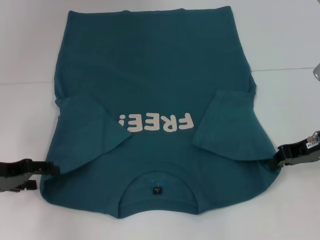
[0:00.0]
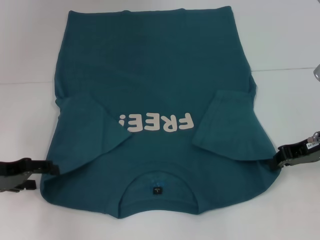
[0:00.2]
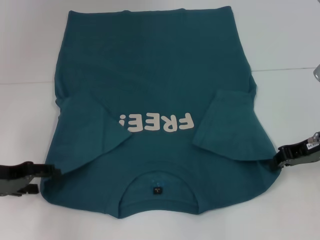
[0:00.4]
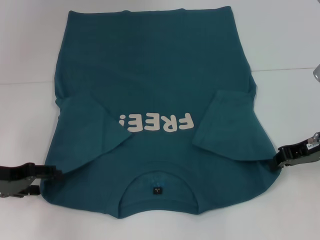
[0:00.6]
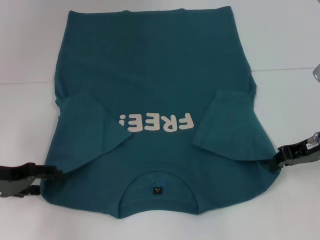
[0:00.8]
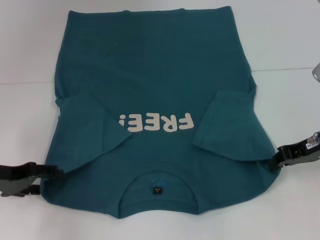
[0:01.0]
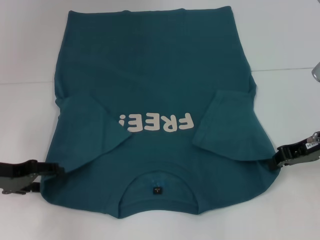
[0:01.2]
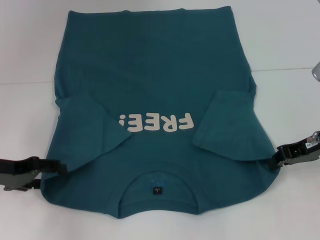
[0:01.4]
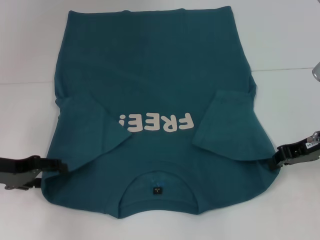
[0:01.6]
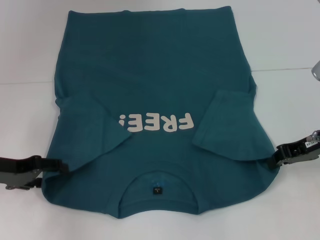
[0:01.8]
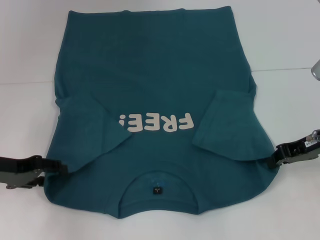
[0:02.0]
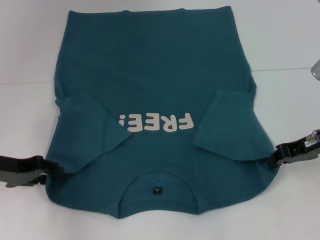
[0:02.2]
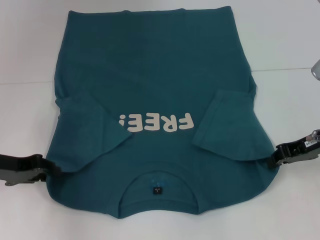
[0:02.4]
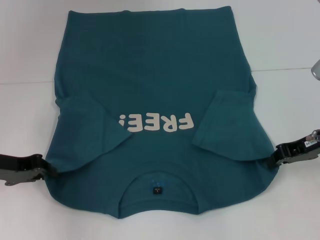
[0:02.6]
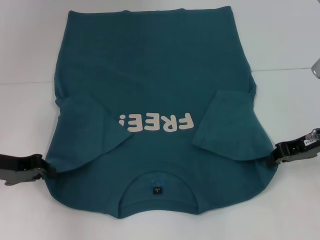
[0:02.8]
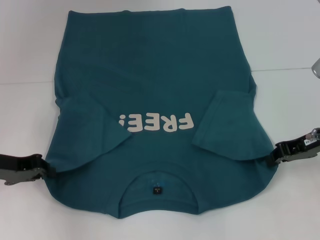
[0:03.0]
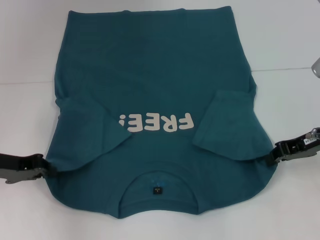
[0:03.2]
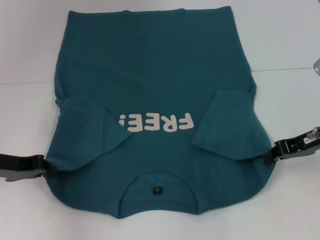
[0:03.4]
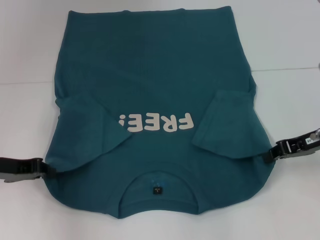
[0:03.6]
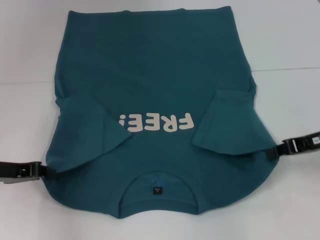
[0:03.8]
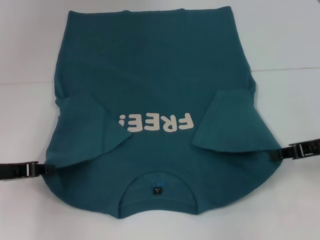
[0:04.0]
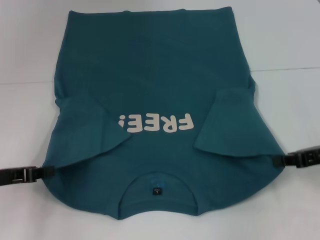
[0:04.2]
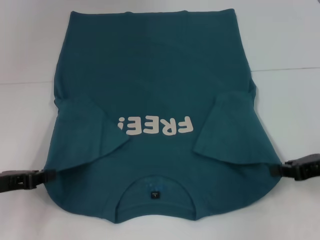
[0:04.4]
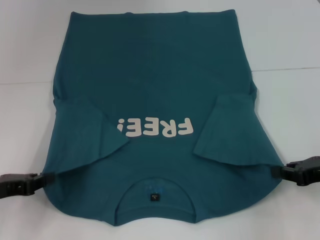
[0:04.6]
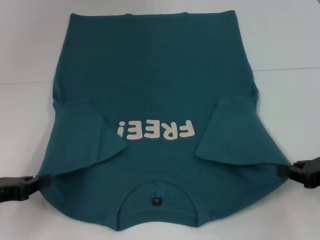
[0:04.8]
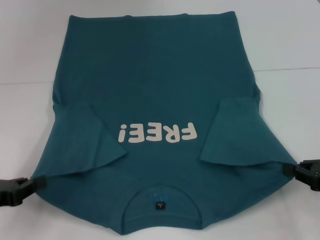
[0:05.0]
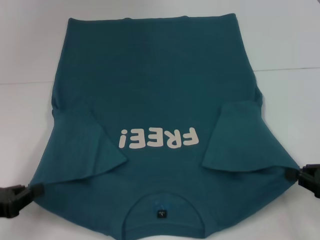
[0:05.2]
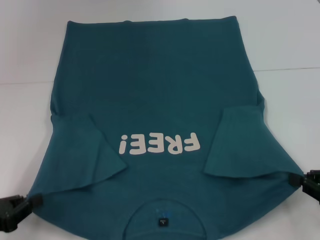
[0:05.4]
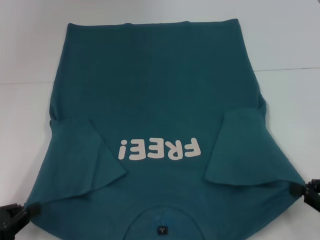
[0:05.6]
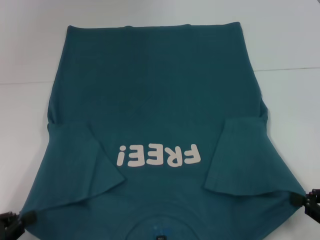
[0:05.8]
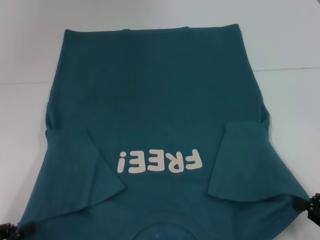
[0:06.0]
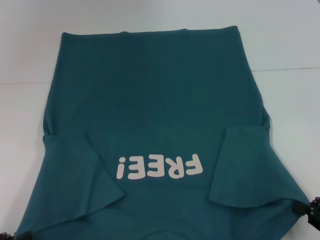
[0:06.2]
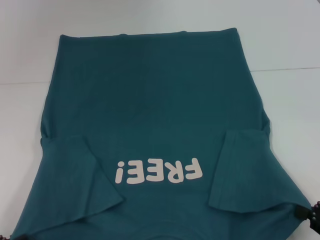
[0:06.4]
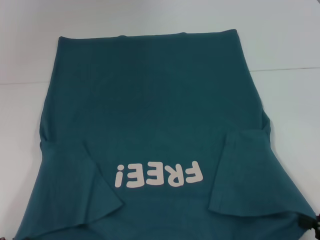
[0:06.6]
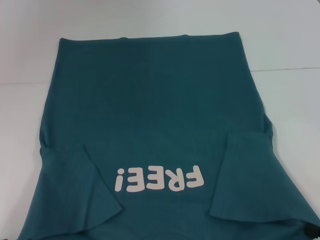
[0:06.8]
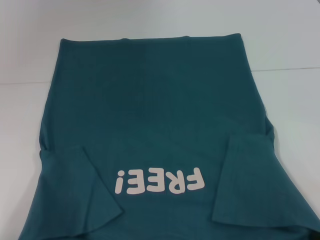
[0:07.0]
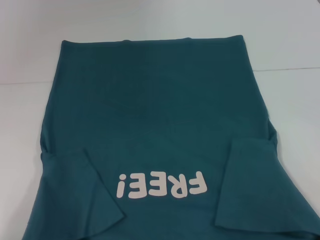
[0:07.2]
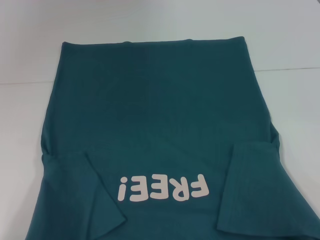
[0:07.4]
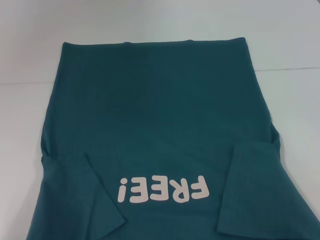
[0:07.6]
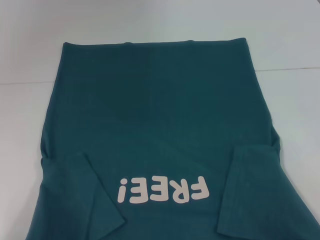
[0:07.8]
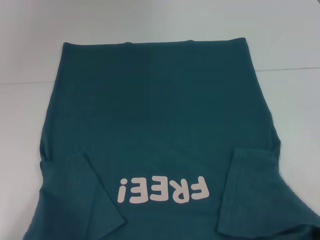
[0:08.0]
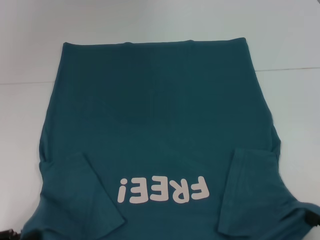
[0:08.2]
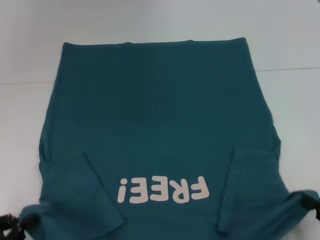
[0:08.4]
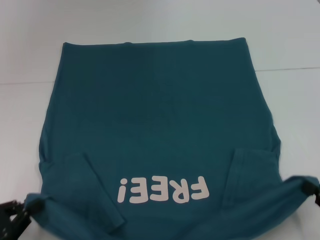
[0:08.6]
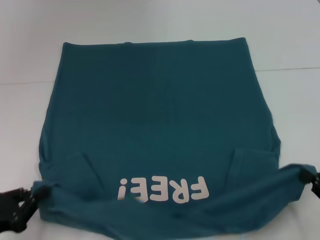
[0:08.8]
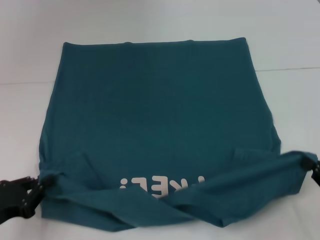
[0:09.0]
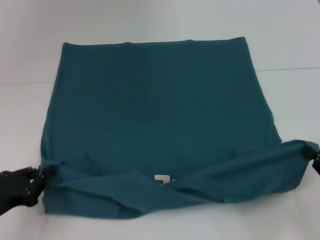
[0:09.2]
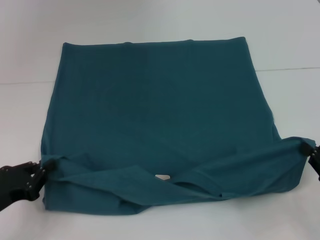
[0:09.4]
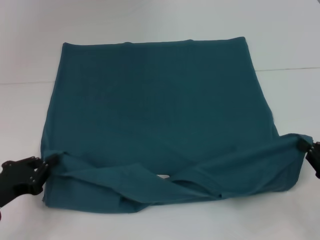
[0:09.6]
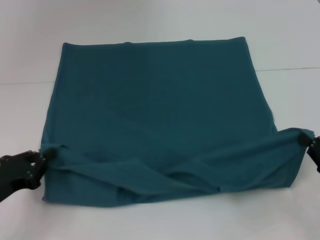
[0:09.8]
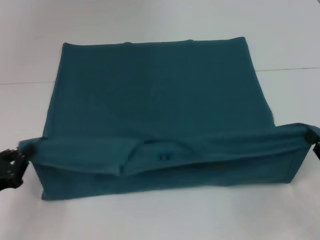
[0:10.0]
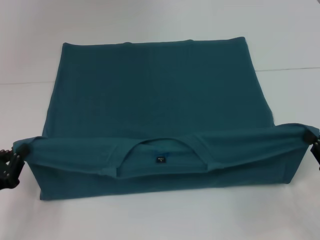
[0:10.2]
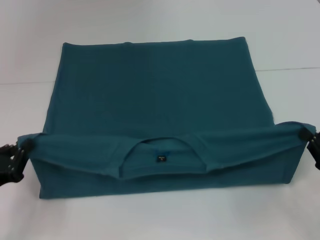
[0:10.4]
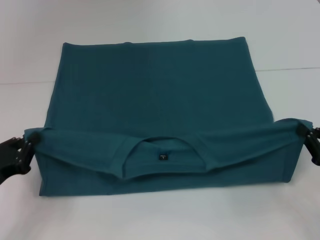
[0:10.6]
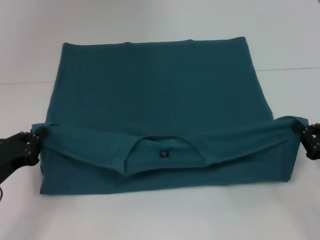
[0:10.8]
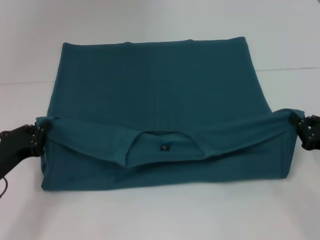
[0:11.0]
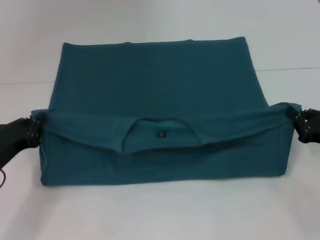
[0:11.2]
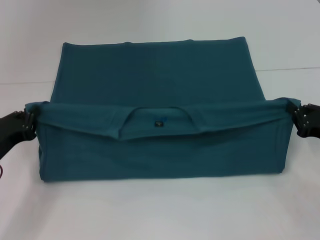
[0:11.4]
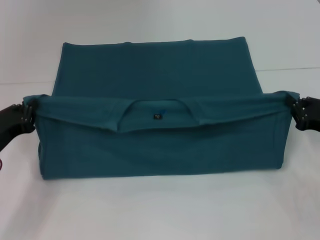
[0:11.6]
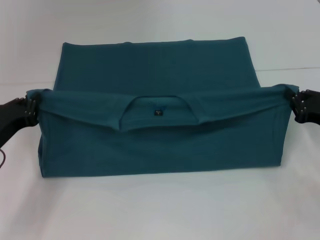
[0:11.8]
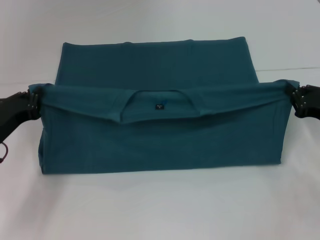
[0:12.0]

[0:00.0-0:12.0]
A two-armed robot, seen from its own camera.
Step, 0:00.0 to 0:03.2: Grab the bottom left corner with your left hand.
0:00.0 to 0:01.6: The two grippers keep their place.
0:01.6 to 0:03.0: The left gripper closes its fingers.
0:03.0 to 0:04.4: The left gripper shifts by approximately 5 cm, while the right gripper travels backward by approximately 5 cm.
0:04.4 to 0:06.0: The grippers both shift backward by some 10 cm.
0:06.0 to 0:07.6: The right gripper goes some 5 cm backward.
0:07.6 to 0:09.0: Both grippers travel together forward, roughly 10 cm.
0:10.4 to 0:12.0: The grippers both shift forward by about 10 cm.

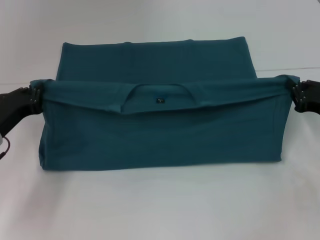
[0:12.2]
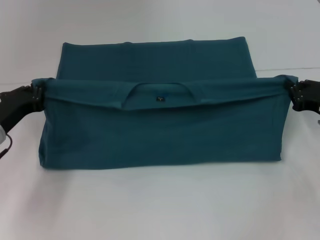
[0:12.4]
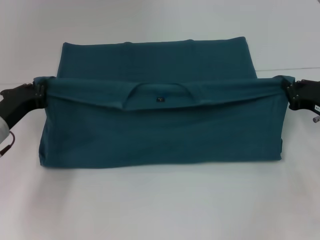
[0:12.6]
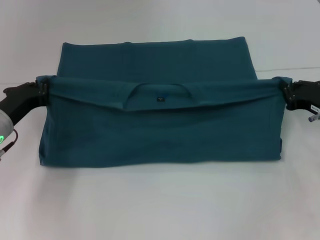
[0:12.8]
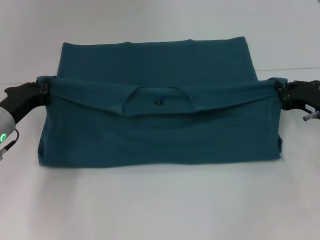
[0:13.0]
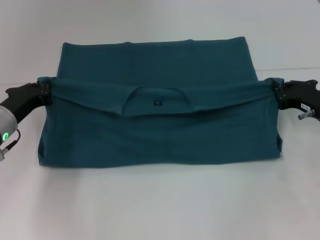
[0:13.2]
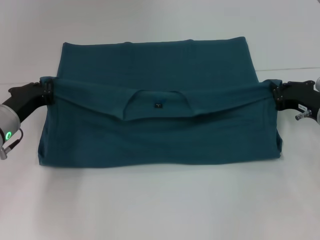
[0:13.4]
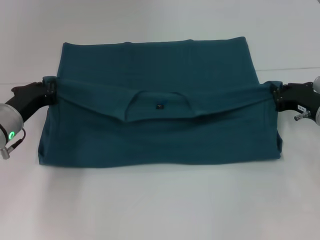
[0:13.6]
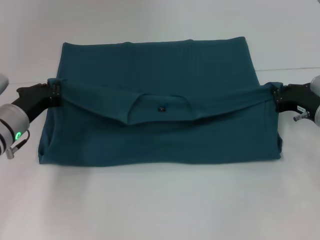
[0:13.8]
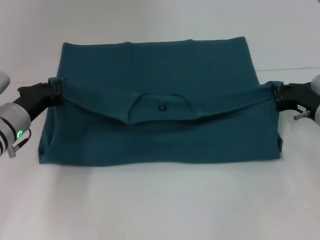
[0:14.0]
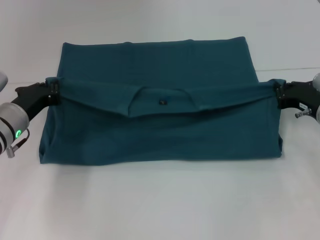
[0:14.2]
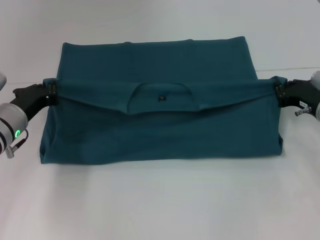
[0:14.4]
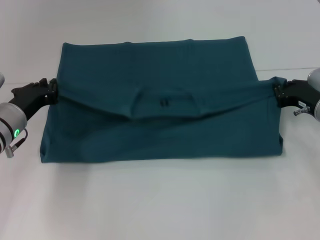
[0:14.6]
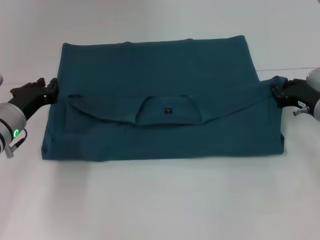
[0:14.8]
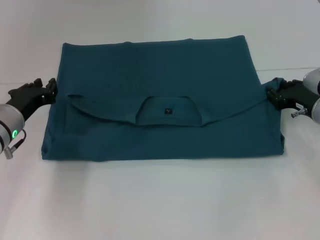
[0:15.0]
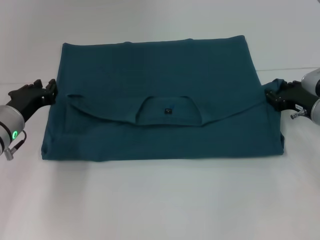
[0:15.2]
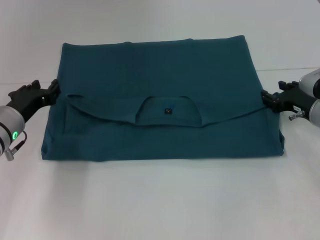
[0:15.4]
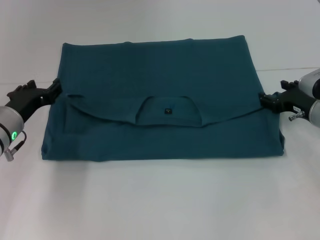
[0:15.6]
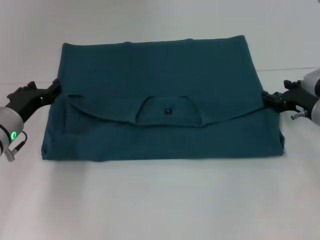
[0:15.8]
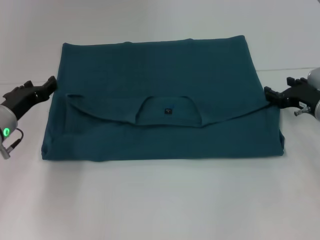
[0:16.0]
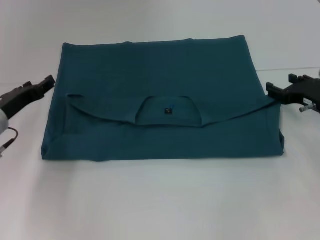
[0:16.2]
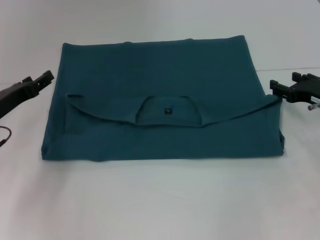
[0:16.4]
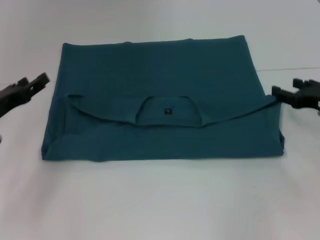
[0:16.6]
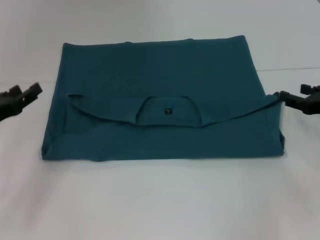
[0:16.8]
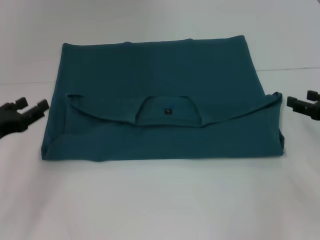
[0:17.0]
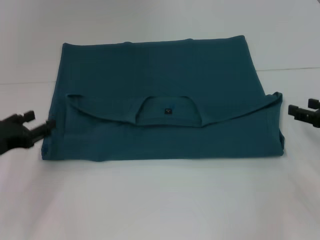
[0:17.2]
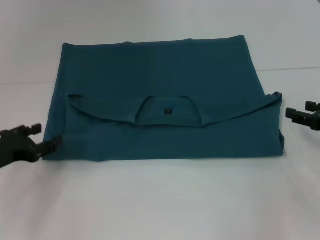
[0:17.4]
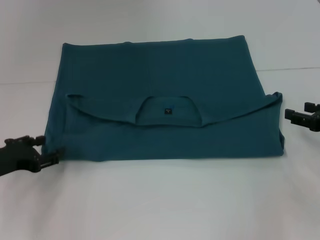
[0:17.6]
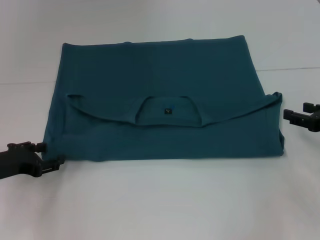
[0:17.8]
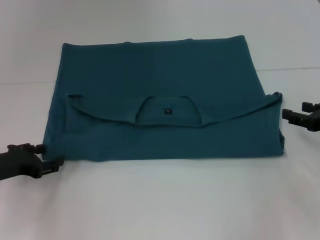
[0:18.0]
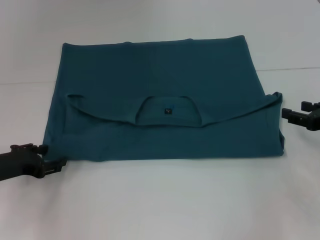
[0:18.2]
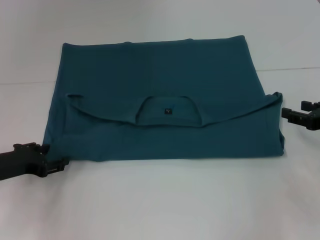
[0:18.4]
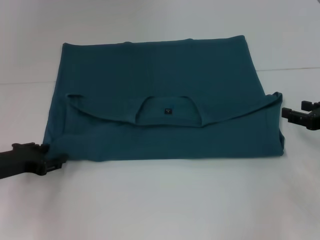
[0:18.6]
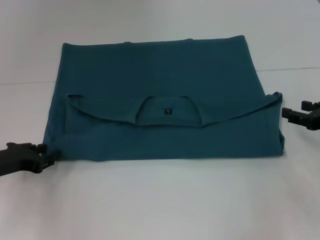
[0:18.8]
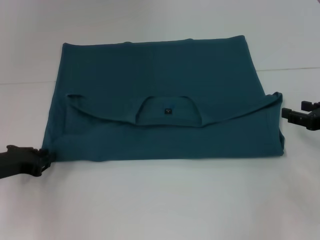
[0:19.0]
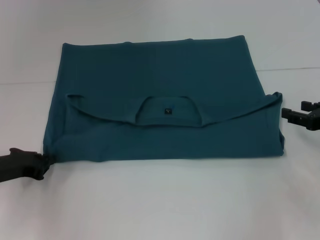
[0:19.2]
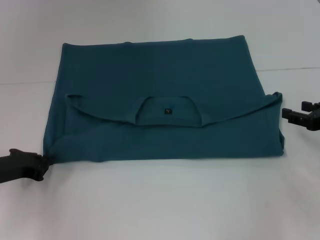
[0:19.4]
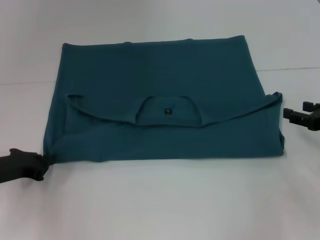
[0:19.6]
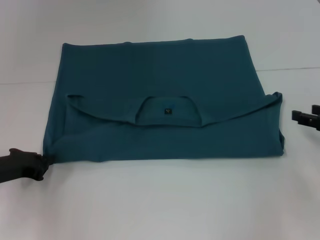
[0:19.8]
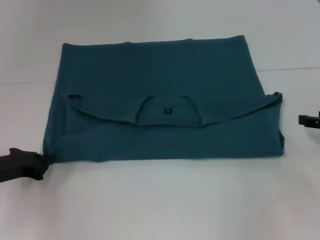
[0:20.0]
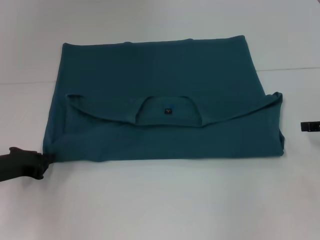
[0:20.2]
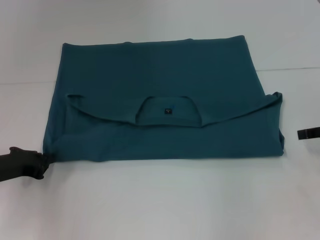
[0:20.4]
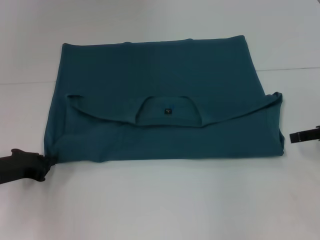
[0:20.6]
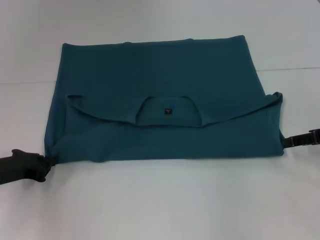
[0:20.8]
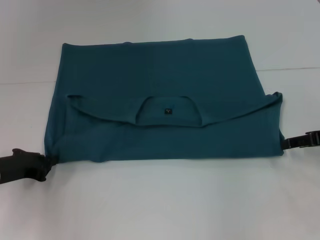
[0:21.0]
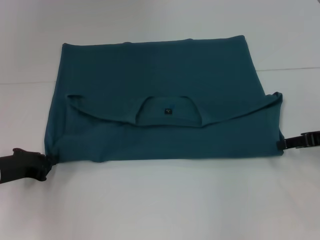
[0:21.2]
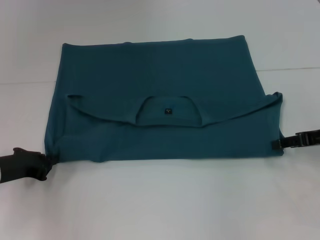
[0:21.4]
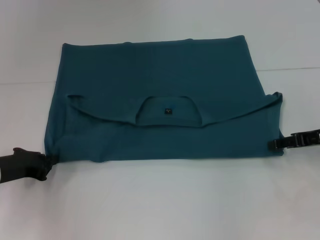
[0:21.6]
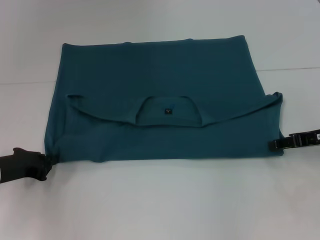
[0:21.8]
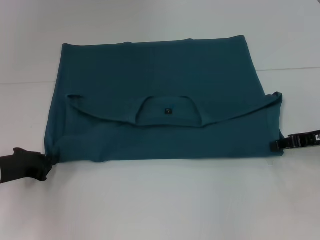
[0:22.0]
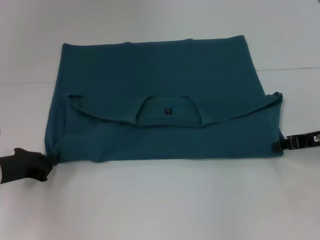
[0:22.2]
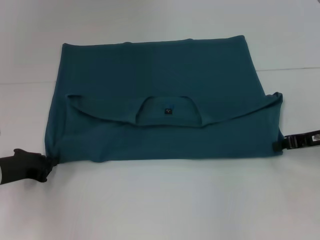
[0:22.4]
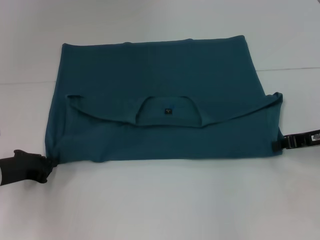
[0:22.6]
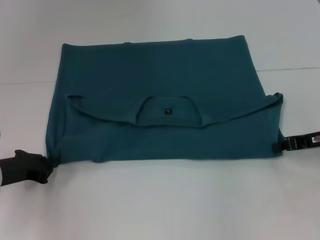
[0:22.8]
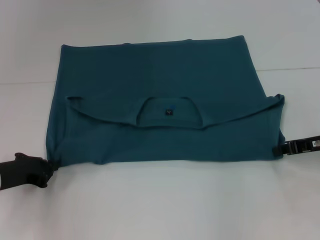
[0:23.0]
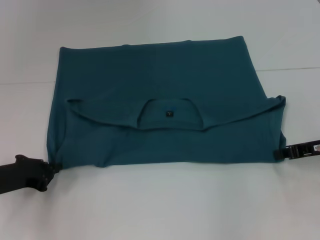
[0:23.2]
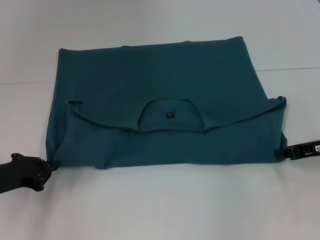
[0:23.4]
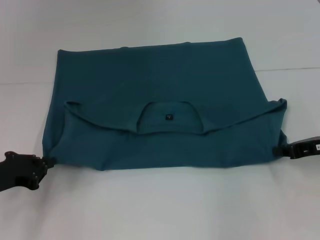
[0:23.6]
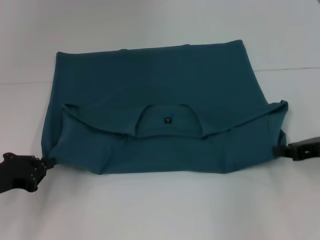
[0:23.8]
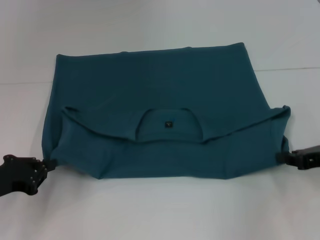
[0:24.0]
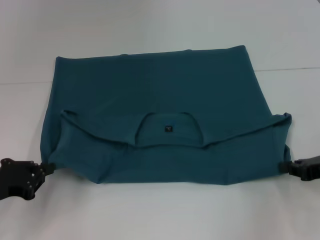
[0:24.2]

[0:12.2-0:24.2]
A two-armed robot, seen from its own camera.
Step, 0:12.2 to 0:15.8: Fold the clothes to the left.
Step, 0:12.2 to 0:15.8: Fold the clothes to the right.
0:12.2 to 0:13.8: The right gripper shifts by roughly 5 cm. Meanwhile the left gripper ends up approximately 5 cm from where it was.
0:13.8 to 0:15.2: The grippers move only a little.
0:15.2 to 0:16.6: The right gripper moves roughly 5 cm, and opens. The left gripper travels to the left by approximately 5 cm, and opens its fingers.
0:18.2 to 0:19.8: The left gripper closes its fingers.
0:22.6 to 0:24.2: Both grippers travel together backward, about 5 cm.
